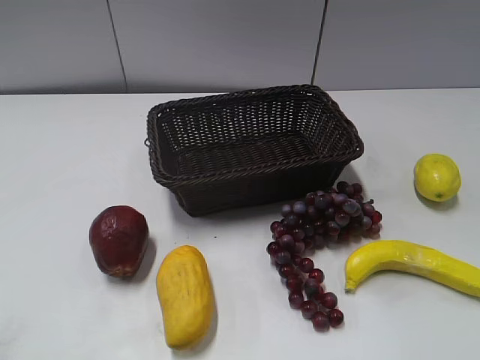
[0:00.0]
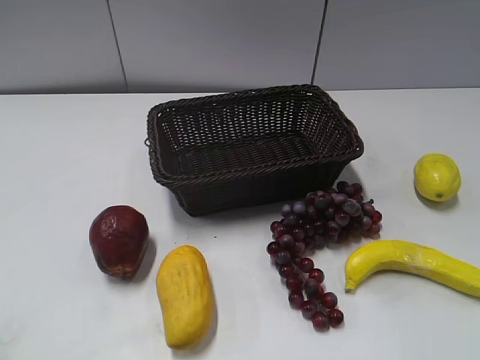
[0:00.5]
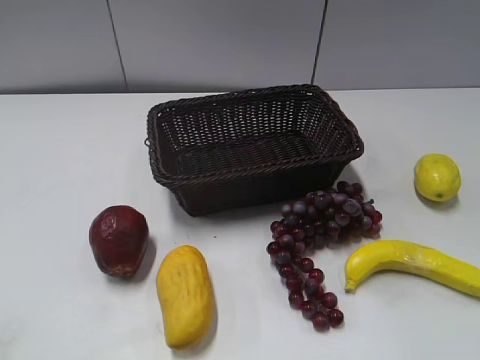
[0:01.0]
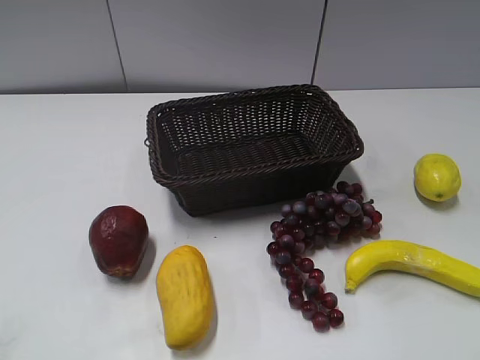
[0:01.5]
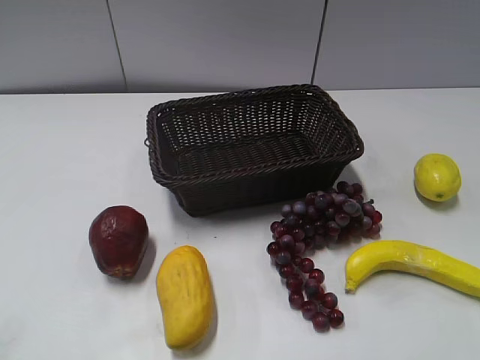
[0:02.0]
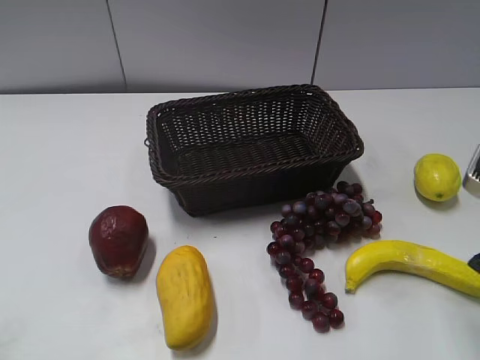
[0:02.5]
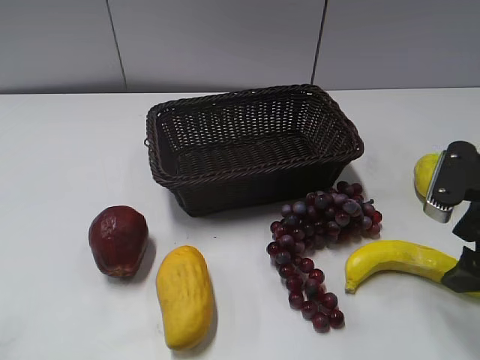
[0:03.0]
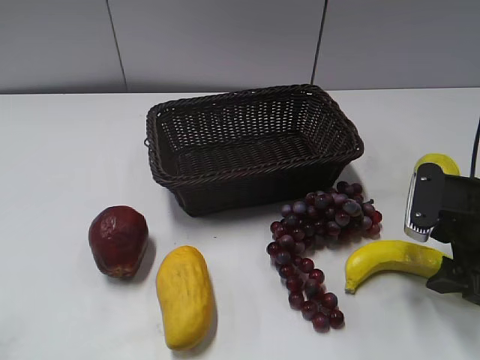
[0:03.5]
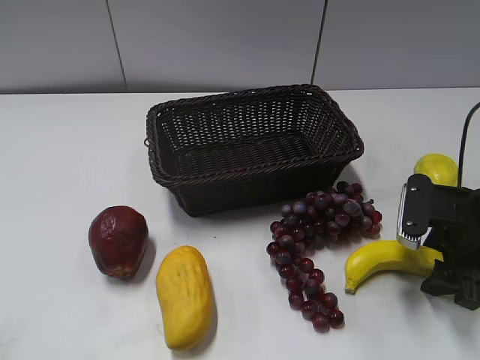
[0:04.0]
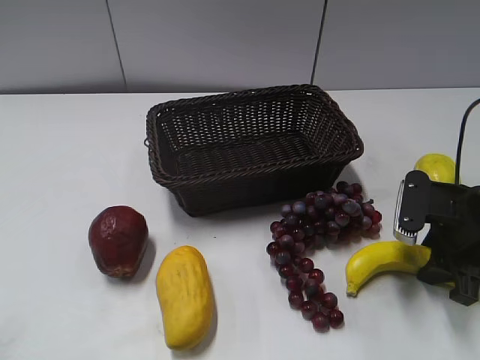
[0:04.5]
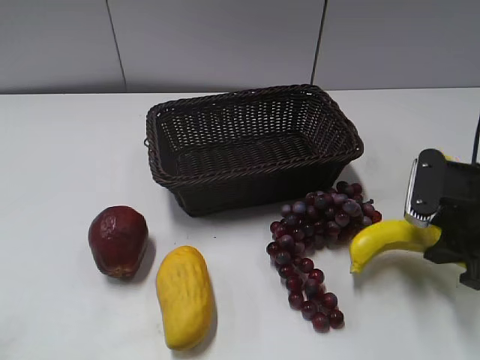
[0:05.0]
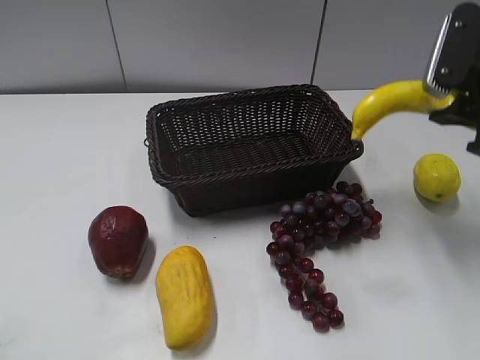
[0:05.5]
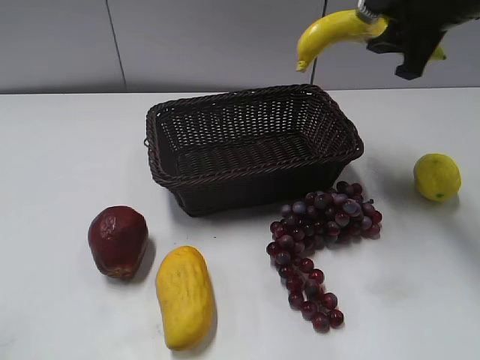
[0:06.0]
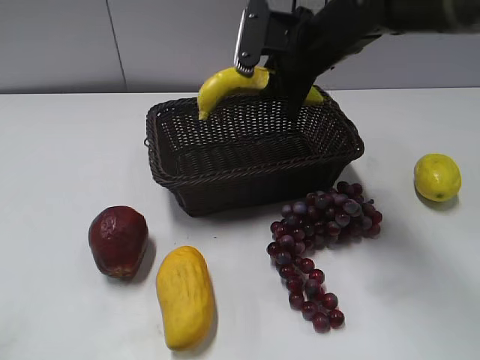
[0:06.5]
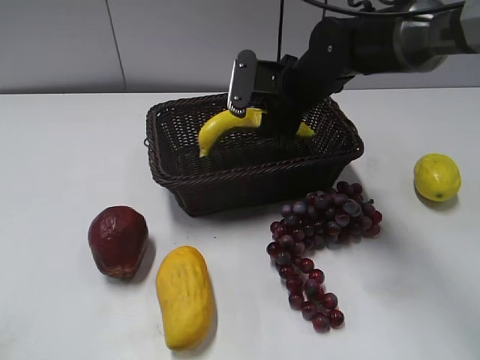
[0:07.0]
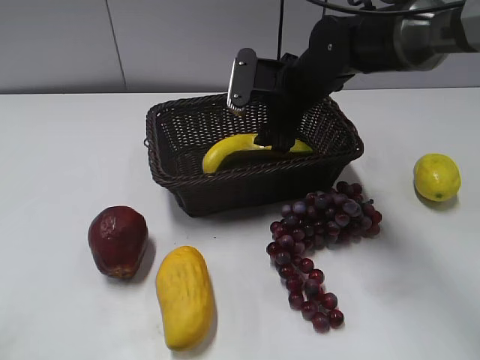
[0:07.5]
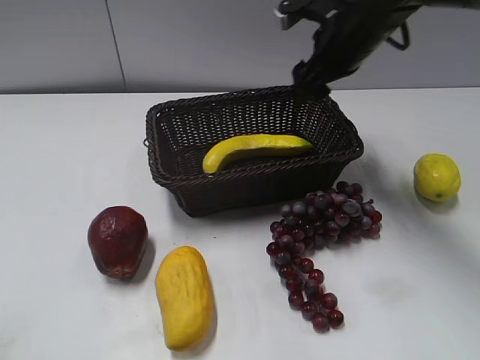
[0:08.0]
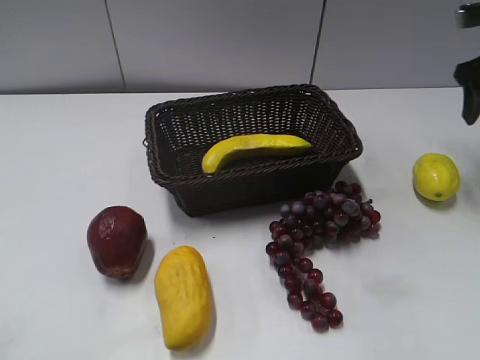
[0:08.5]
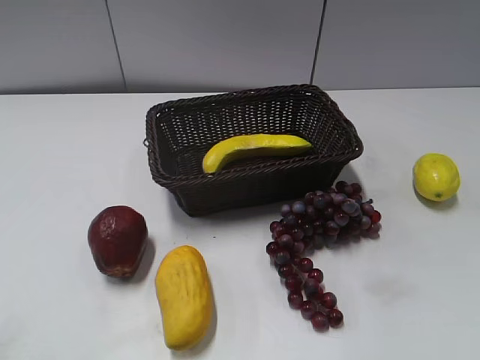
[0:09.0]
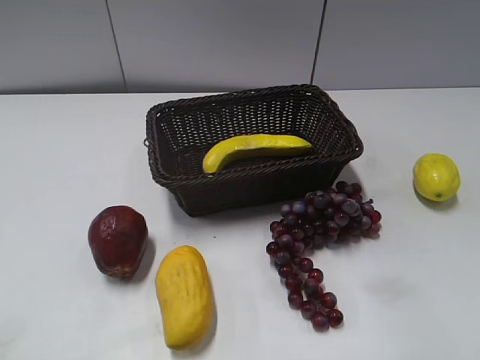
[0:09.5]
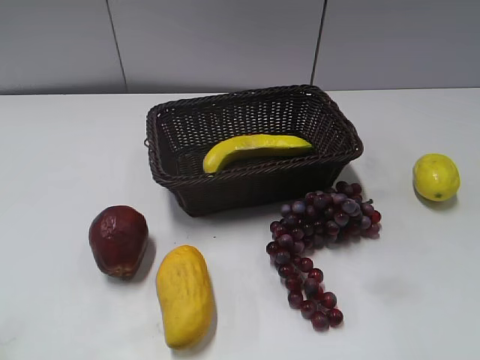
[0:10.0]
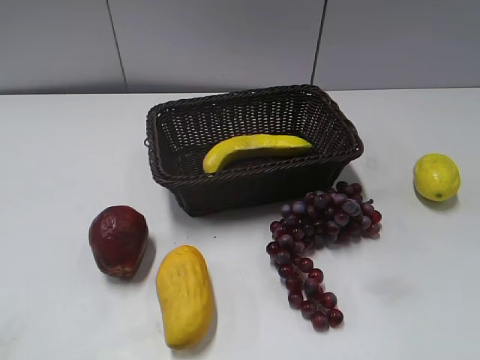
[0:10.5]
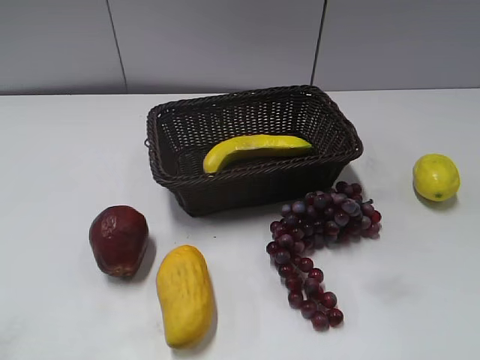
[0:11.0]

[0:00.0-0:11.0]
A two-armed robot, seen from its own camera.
Step, 0:02.5 to 0:04.5: Grasp the banana with right gripper.
Step, 0:05.0 to 0:07.5: Place the banana in the basket with right gripper.
0:02.0 to 0:03.5: The right gripper heads downward and forward, covering some 15 cm.
0:03.5 to 0:05.5: The right gripper goes some 15 cm upward and forward, and closes up.
0:05.5 to 0:07.5: The right gripper shifts about 25 cm to the left, forward and downward, and opens.
0:07.5 to 0:09.0: The right gripper goes some 30 cm to the right, backward and upward.
0:09.0 to 0:11.0: The right gripper is displaced backward by about 25 cm.
